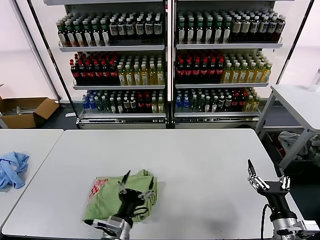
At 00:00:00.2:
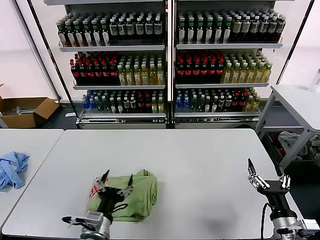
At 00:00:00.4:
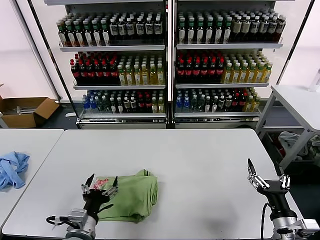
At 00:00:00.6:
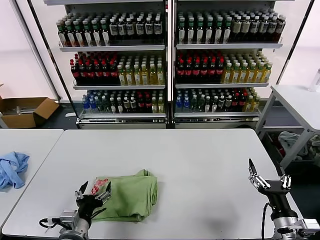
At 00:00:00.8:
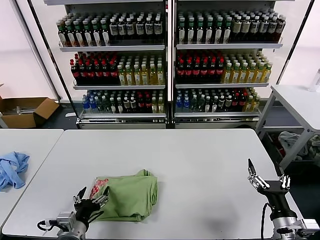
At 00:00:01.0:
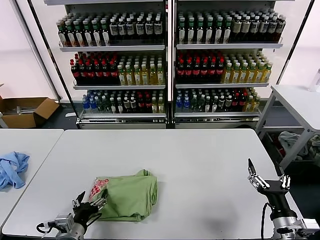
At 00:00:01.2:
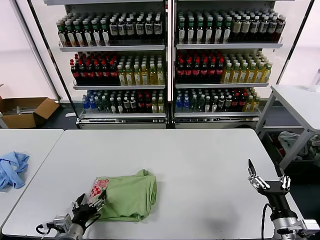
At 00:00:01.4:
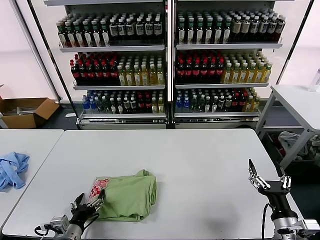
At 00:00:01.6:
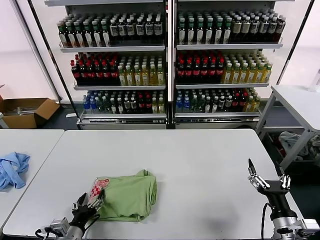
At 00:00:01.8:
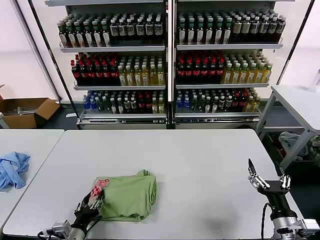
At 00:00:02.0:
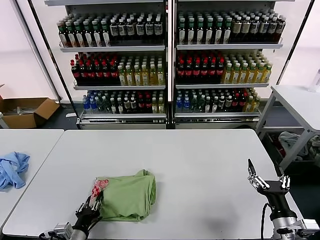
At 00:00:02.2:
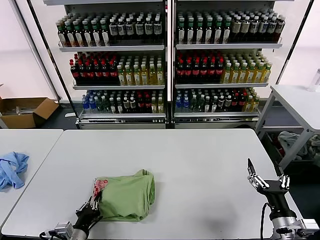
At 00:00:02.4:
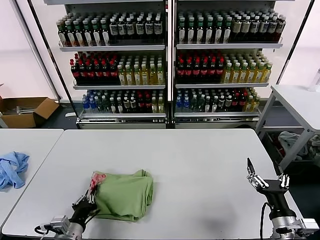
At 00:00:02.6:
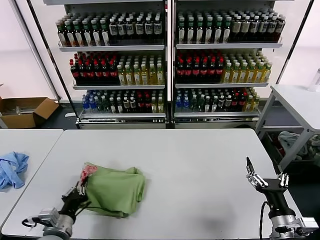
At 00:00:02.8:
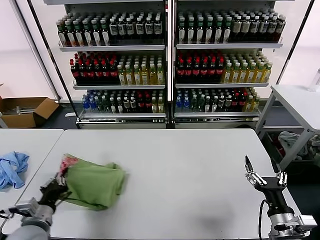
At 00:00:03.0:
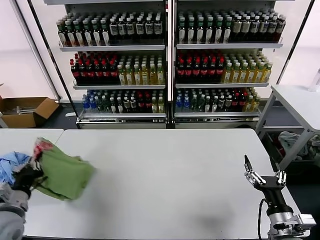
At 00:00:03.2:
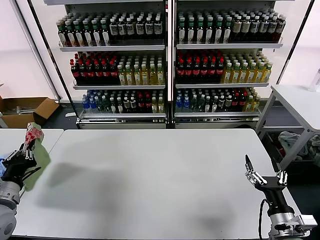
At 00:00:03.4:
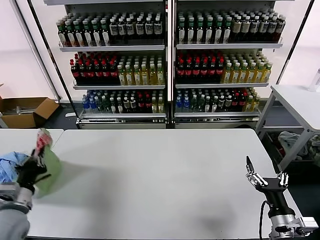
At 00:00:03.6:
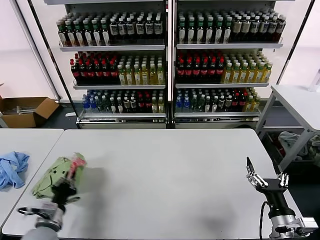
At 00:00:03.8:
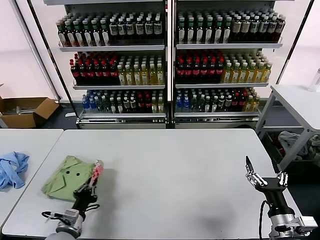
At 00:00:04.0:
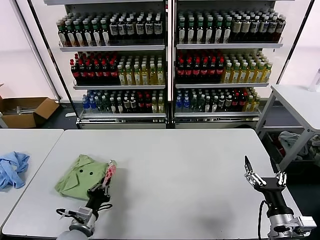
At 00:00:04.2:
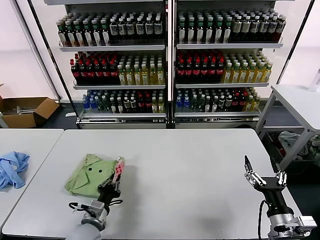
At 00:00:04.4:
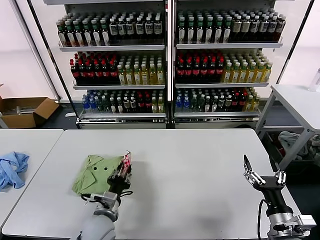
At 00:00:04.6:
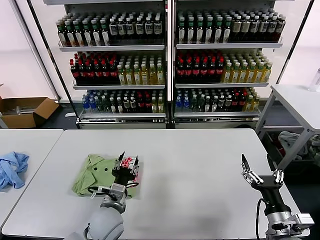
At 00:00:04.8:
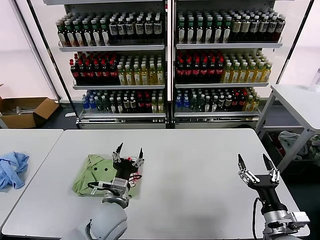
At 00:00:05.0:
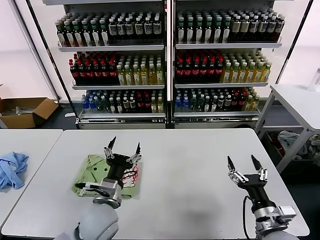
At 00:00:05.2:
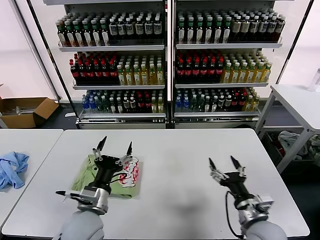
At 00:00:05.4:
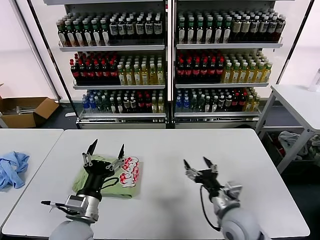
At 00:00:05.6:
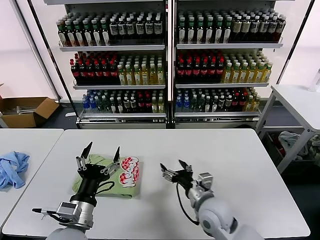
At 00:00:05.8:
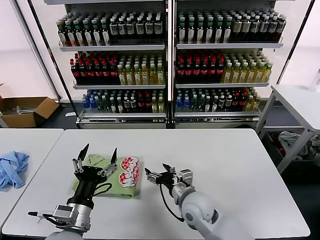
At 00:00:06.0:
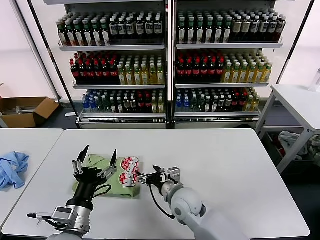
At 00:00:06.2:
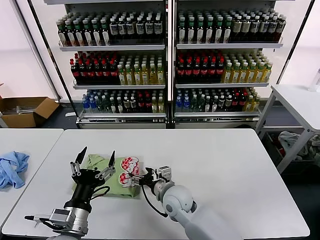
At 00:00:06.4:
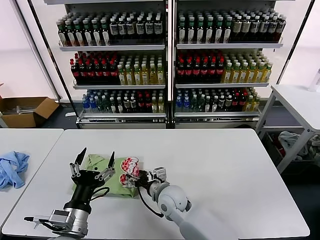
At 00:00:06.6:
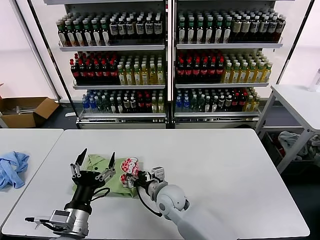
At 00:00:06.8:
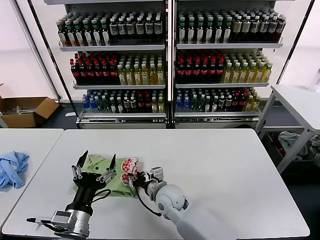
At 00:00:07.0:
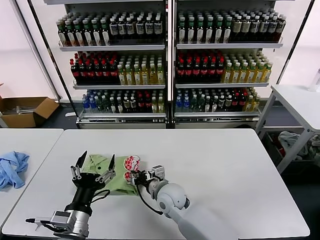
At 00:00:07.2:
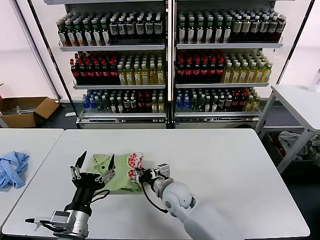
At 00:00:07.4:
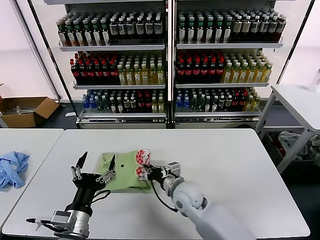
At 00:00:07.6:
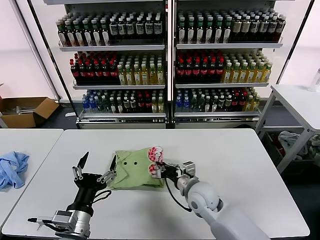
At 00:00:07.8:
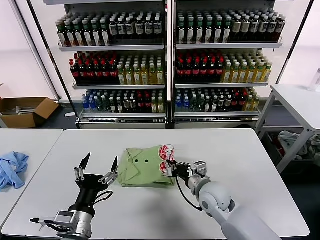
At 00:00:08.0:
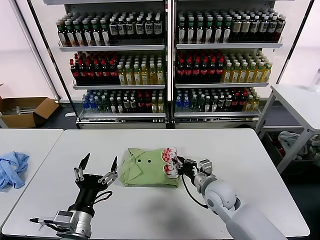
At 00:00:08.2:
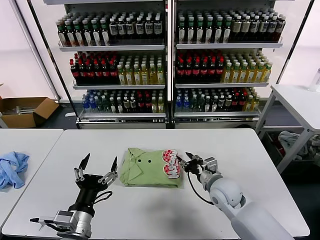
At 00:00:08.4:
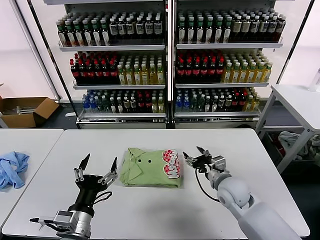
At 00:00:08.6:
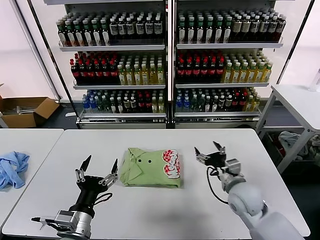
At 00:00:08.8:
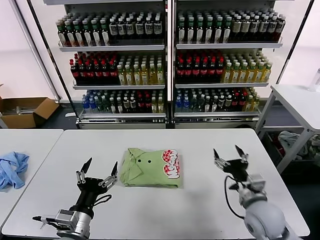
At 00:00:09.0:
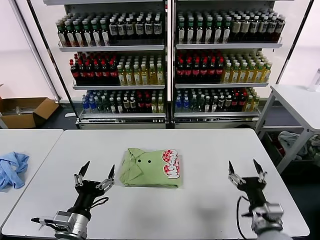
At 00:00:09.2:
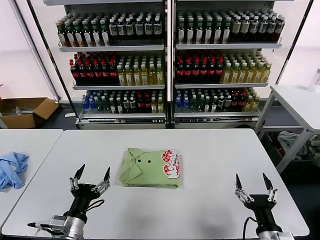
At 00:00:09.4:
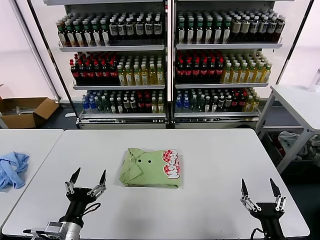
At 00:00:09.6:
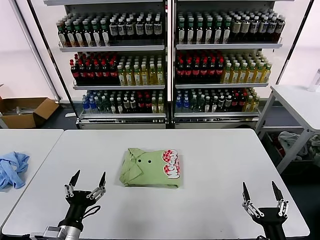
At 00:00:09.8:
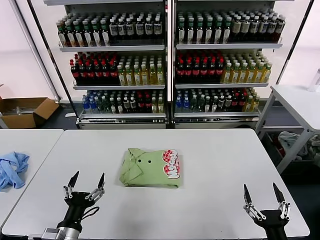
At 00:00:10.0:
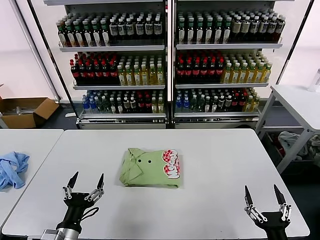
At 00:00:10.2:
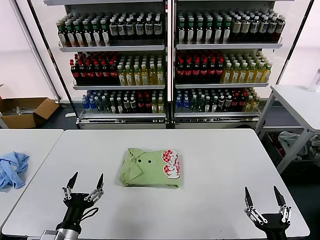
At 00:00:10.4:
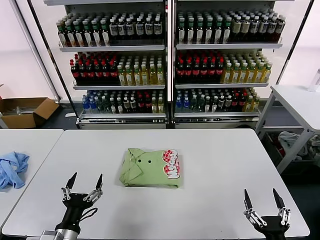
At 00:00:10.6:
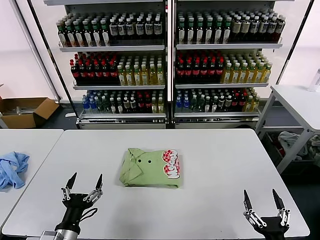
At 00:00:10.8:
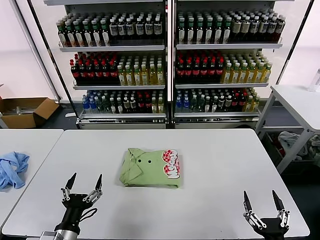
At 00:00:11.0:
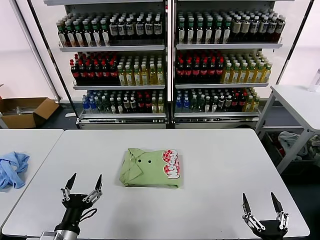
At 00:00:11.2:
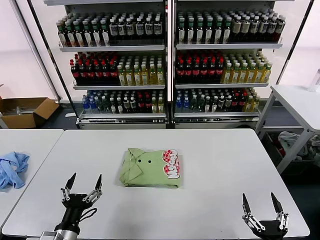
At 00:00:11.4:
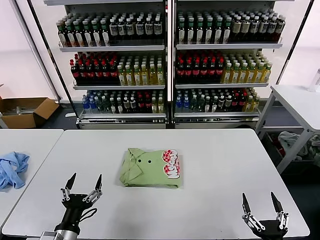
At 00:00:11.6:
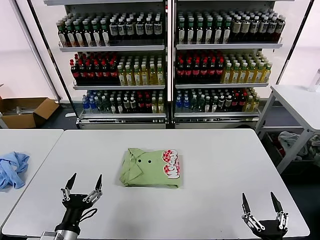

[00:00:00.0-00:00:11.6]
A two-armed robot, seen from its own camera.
Task of the whole recording: fold and organize the clothes.
Step, 00:00:00.0 to 00:00:04.4: Flip the folded clothes over with left gripper.
Step, 00:00:04.6 to 00:00:08.0: Drag the clothes to the center of the table.
00:00:00.0 to 00:00:01.4: The left gripper is displaced to the left by approximately 15 cm.
00:00:01.4 to 00:00:02.8: The left gripper is displaced upward by about 5 cm, and closes.
00:00:02.8 to 00:00:04.4: The left gripper moves to the right, roughly 15 cm.
00:00:04.4 to 00:00:05.8: The right gripper shifts roughly 25 cm to the left and forward. Meanwhile the left gripper heads upward and backward, covering roughly 15 cm, and opens up.
00:00:05.8 to 00:00:07.2: The right gripper is displaced to the left by approximately 10 cm, and closes up.
00:00:07.2 to 00:00:08.8: The right gripper goes roughly 25 cm to the right, and opens.
00:00:08.8 to 00:00:10.2: The left gripper travels downward by about 5 cm; the right gripper shifts about 20 cm backward.
00:00:10.2 to 00:00:11.6: The grippers move only a little.
